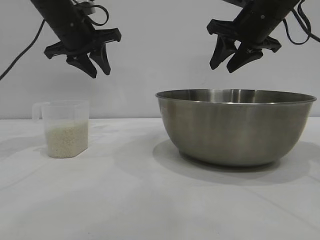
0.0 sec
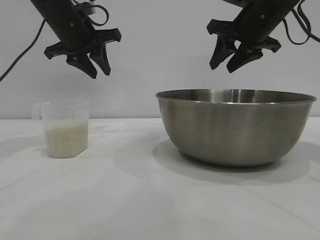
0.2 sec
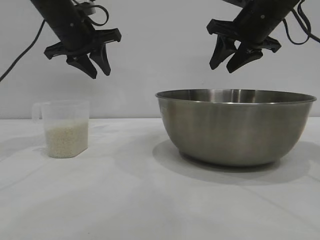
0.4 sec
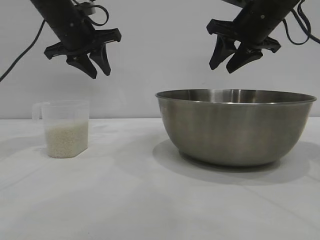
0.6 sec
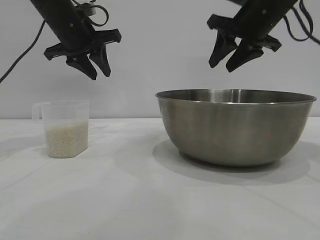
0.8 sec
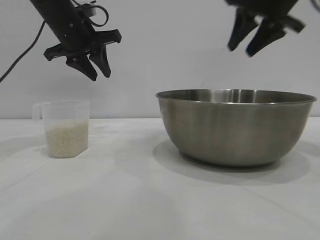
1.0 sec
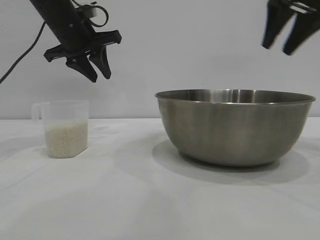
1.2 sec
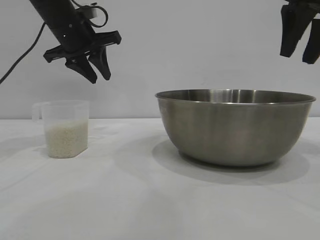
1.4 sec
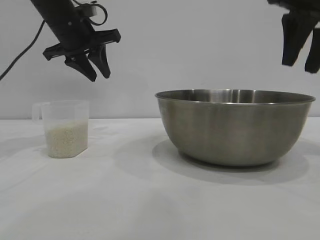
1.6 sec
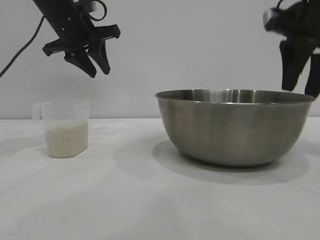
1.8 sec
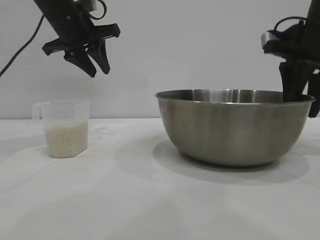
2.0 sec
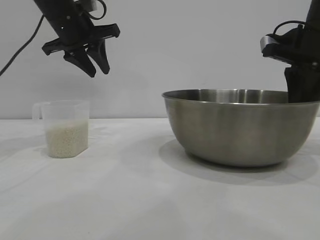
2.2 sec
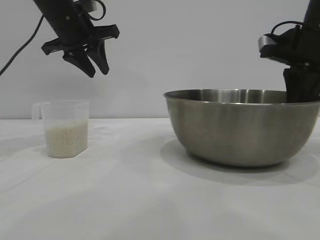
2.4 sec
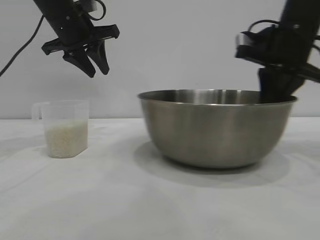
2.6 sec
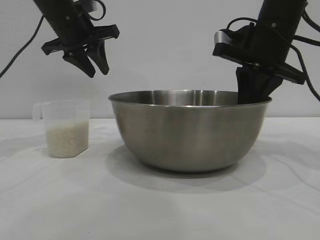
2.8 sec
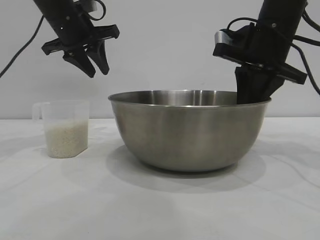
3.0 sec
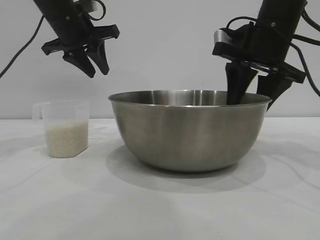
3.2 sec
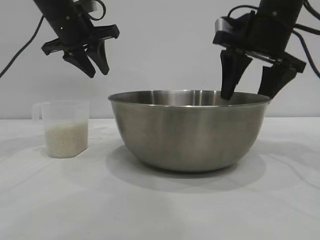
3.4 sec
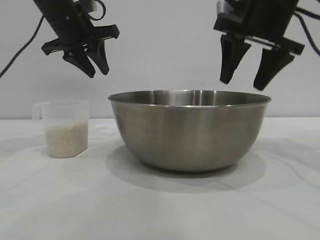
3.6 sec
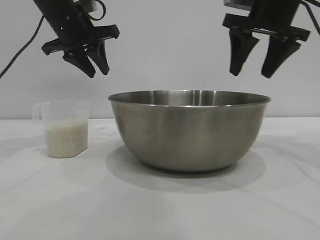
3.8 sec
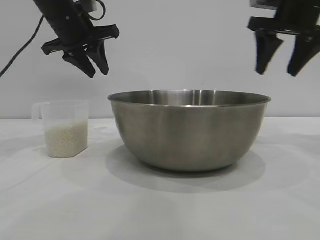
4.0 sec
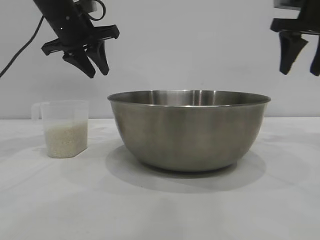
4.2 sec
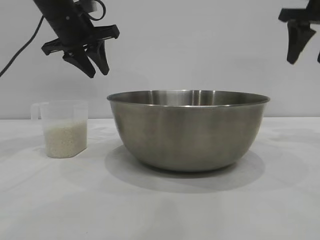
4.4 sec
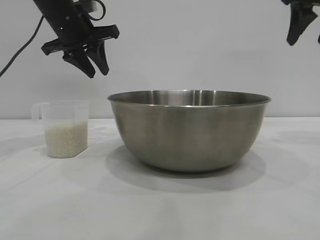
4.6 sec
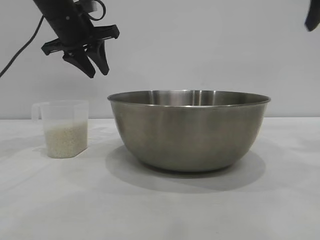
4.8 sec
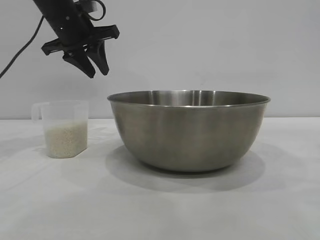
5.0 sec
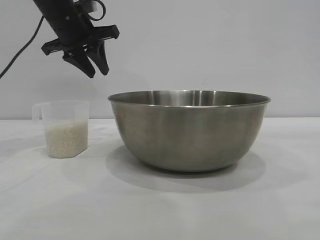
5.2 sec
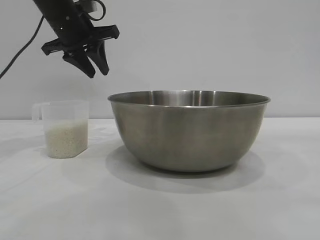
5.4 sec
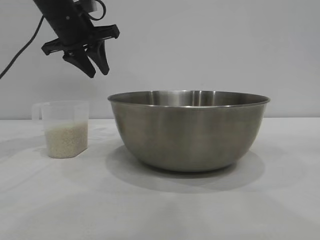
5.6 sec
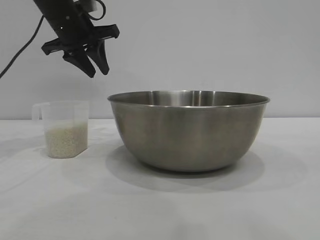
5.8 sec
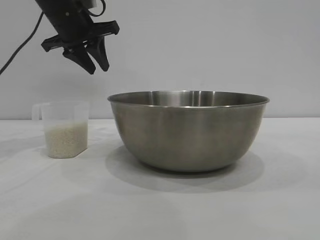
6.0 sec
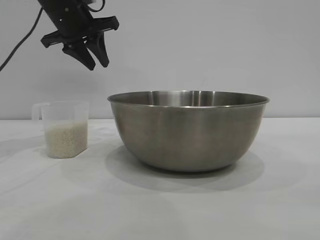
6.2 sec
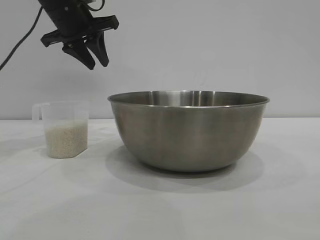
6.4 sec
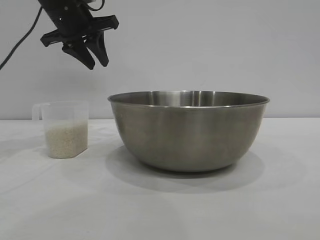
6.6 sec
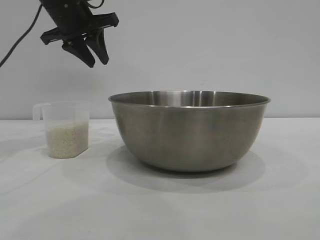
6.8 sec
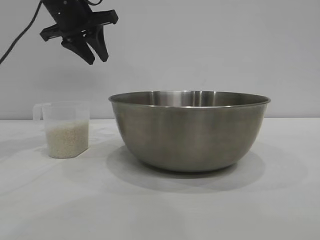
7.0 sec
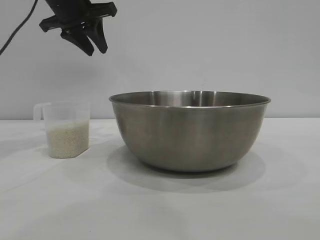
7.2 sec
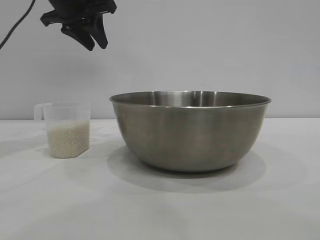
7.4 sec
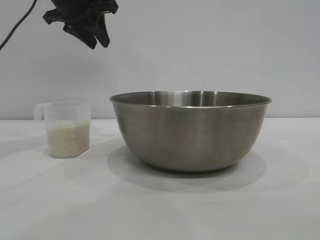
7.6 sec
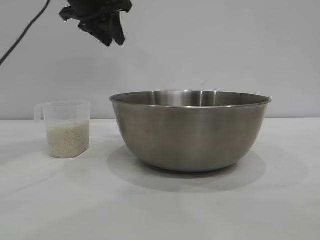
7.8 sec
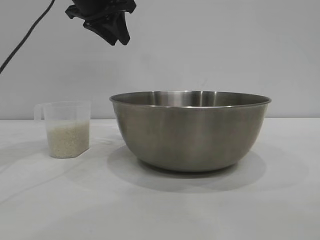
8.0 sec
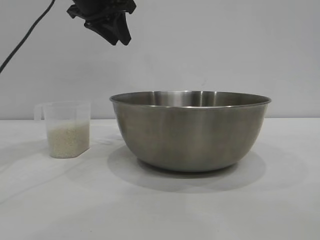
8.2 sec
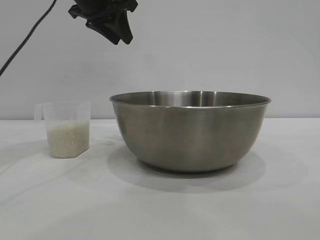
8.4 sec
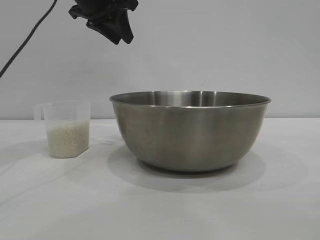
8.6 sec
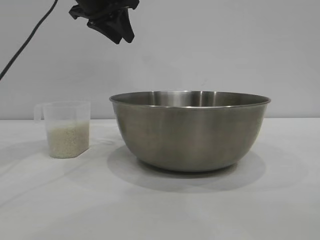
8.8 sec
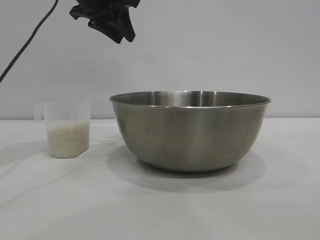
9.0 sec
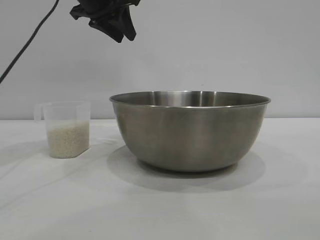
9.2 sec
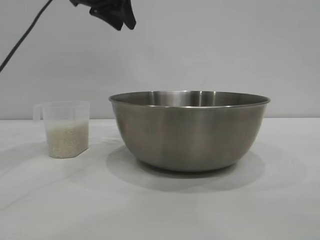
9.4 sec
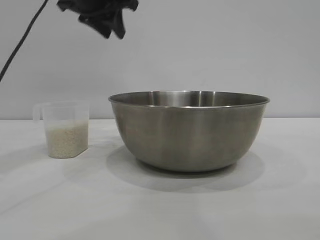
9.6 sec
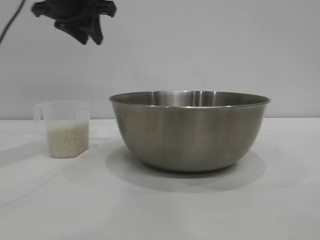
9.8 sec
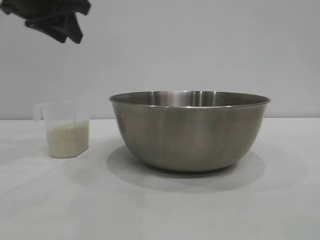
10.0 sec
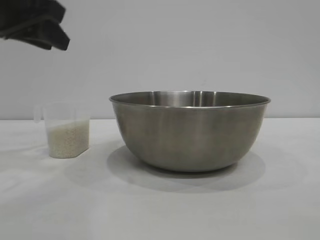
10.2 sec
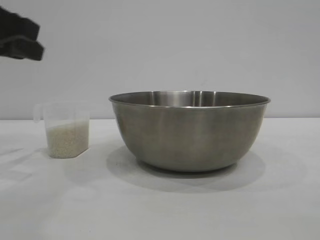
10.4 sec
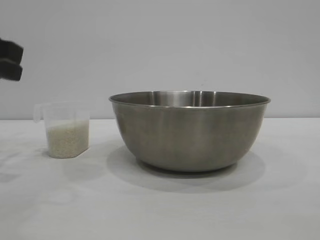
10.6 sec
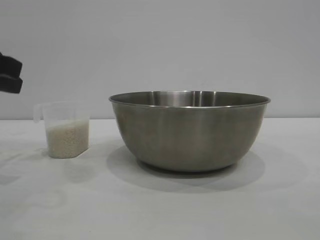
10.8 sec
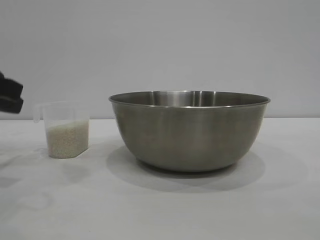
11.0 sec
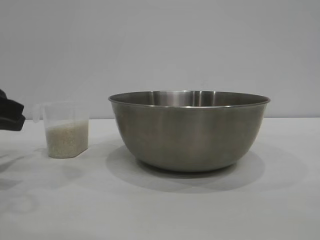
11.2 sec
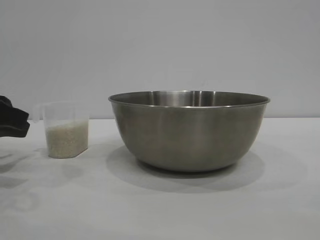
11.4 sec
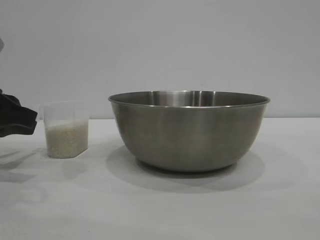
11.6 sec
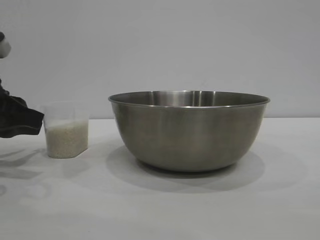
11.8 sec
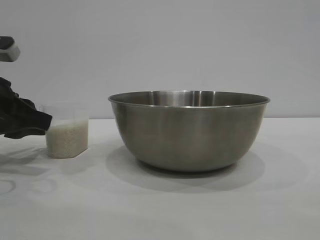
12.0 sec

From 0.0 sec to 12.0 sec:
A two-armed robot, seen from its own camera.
Task of the whole recording: the right gripper grasp the rice container and place it in the center of the table, the left gripper grasp the rice scoop and pour the rice into the rice container.
Step, from 0.0 sec to 3.6 sec: Move the bowl to the center of view with the right gripper.

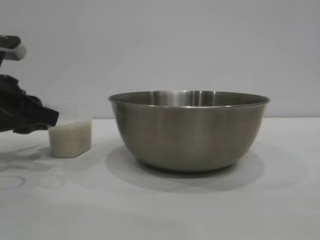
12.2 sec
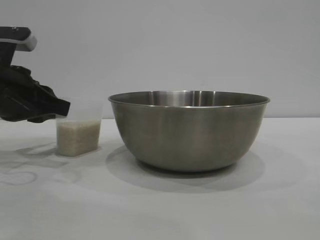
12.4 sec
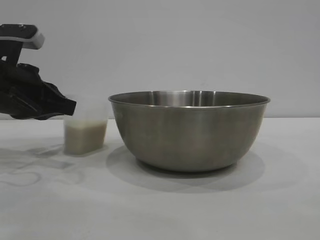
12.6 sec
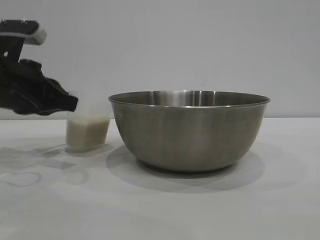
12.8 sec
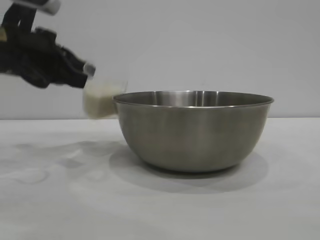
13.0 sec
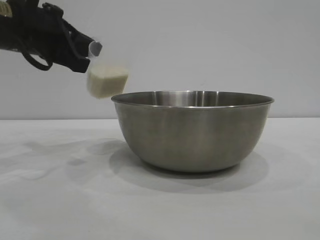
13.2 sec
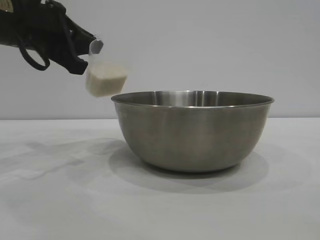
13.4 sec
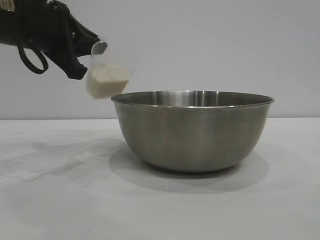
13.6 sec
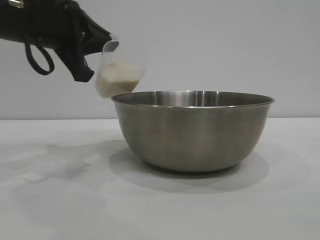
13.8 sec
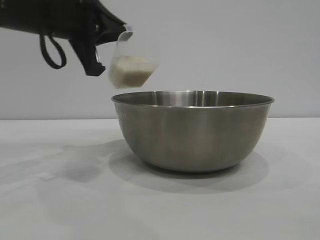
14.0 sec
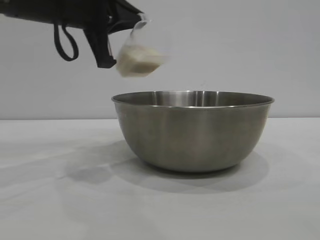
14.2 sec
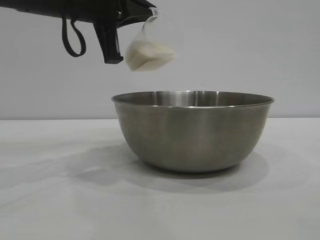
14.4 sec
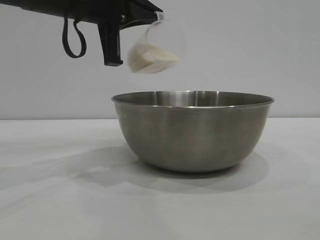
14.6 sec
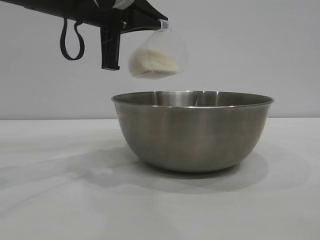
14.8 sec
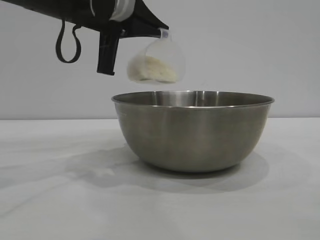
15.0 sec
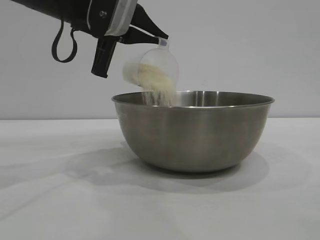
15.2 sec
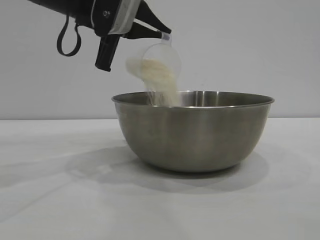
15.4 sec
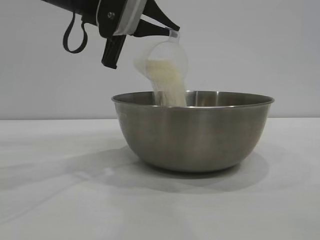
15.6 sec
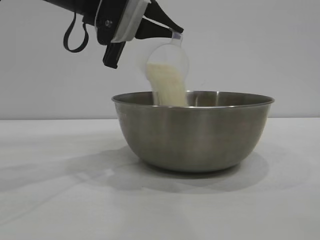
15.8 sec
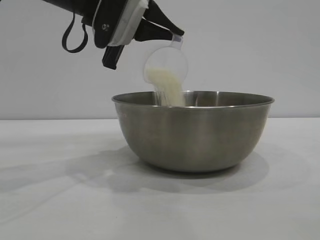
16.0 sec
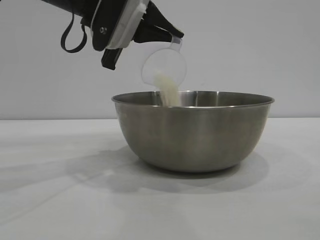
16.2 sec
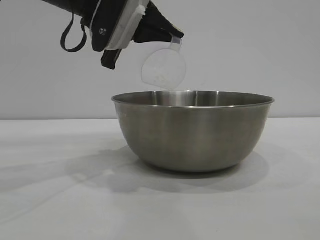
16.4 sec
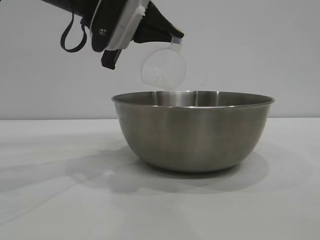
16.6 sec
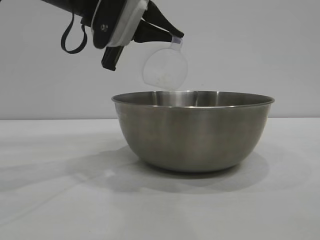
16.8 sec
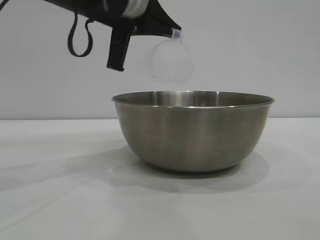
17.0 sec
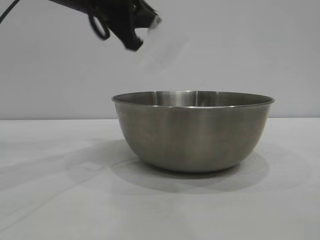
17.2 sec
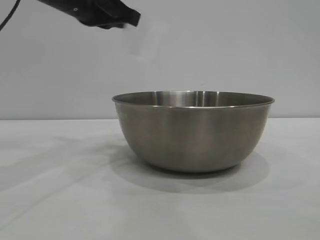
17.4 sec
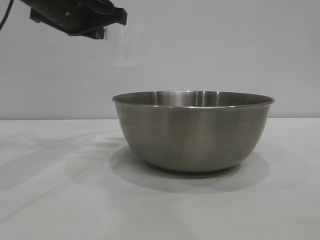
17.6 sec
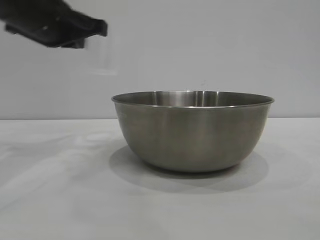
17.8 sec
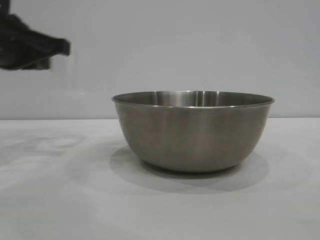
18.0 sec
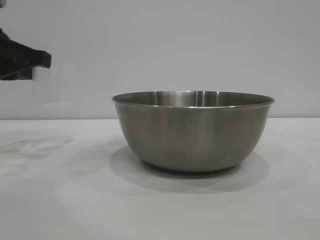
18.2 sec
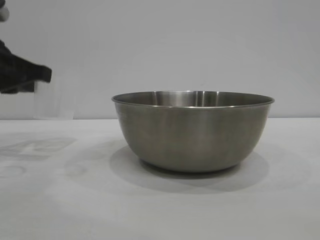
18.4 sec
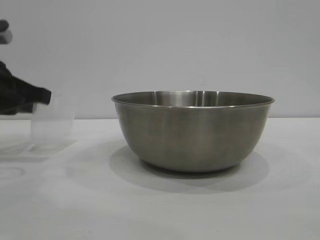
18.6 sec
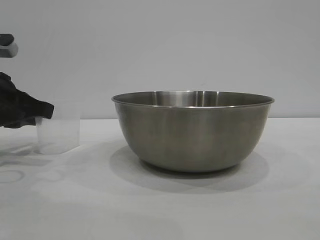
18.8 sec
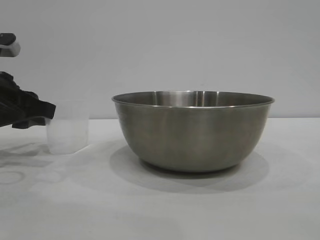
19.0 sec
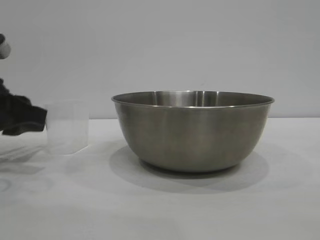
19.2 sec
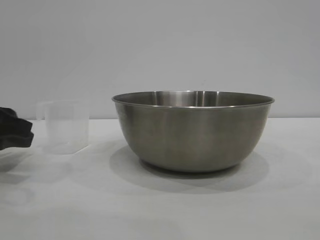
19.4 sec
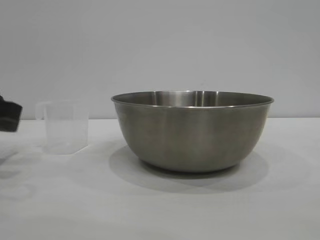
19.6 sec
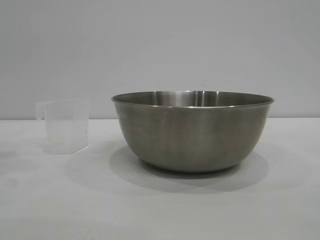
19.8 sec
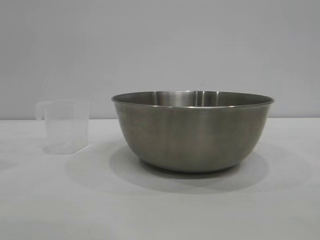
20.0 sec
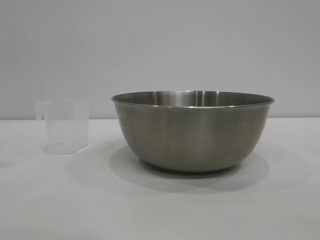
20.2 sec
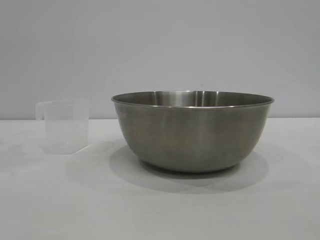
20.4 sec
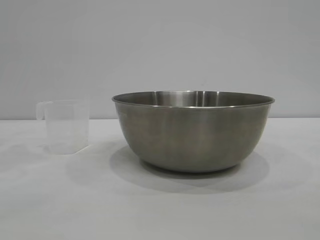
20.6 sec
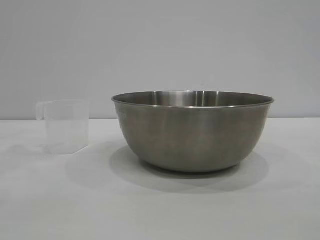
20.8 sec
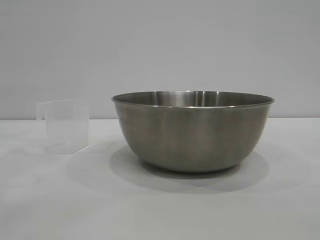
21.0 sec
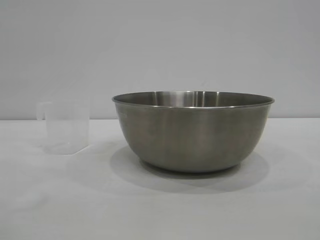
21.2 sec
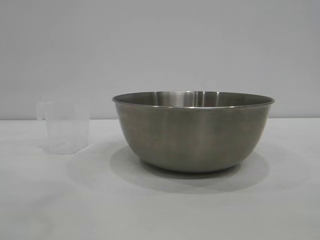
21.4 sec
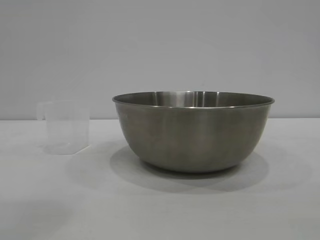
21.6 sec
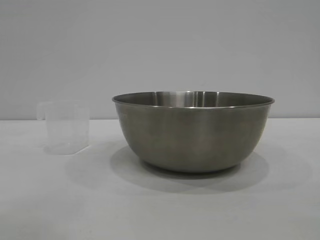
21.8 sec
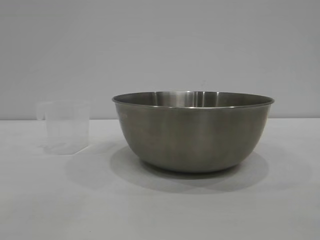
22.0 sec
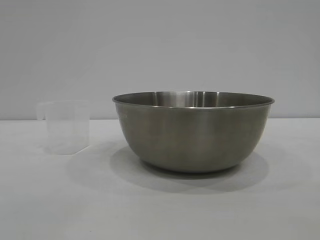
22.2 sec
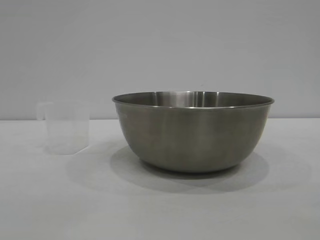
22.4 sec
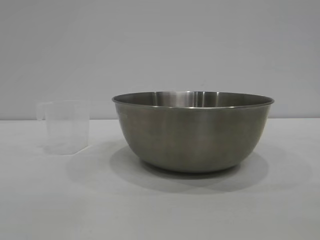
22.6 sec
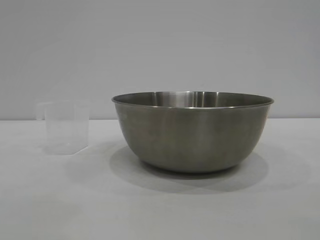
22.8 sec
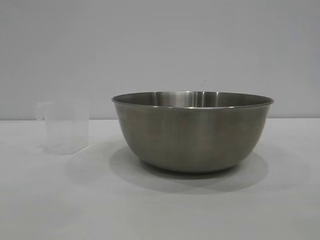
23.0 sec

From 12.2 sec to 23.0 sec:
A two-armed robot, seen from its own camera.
Task of the whole recording: the right gripper grasp the rice container and place it in the center of the table, the left gripper grasp the rice scoop and pour the rice into the rice container.
Step, from 13.0 sec to 17.2 sec: Pour the rice from the cup into the bowl with the left gripper.
Step, from 17.4 sec to 19.6 sec: Place the cup on the table with the left gripper.
